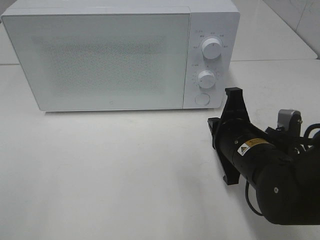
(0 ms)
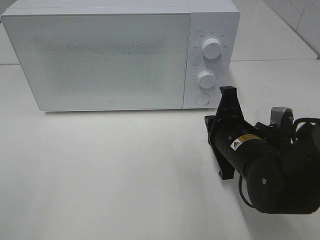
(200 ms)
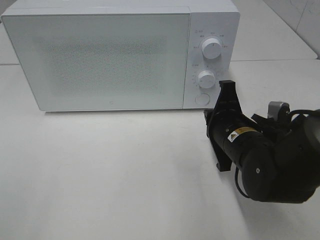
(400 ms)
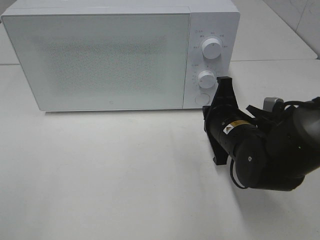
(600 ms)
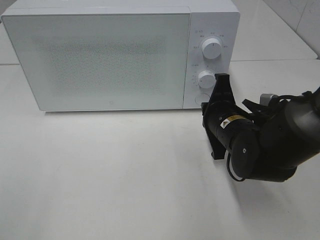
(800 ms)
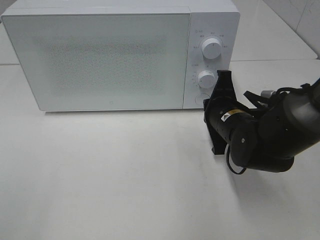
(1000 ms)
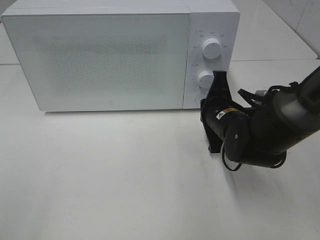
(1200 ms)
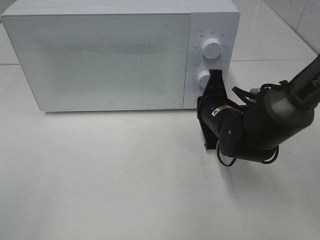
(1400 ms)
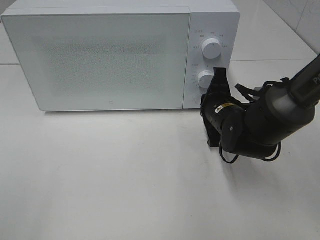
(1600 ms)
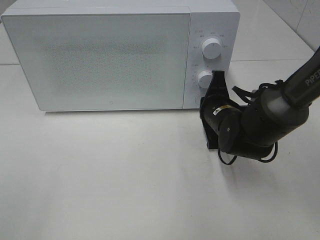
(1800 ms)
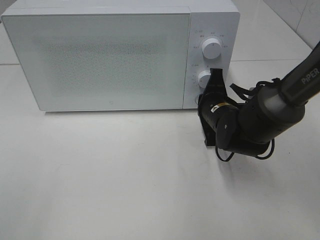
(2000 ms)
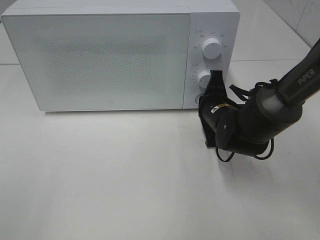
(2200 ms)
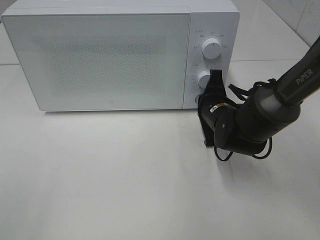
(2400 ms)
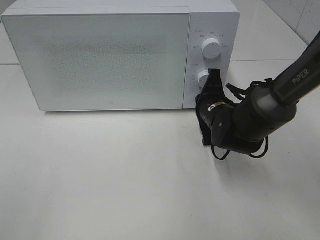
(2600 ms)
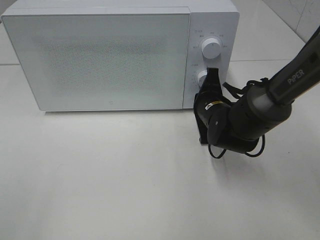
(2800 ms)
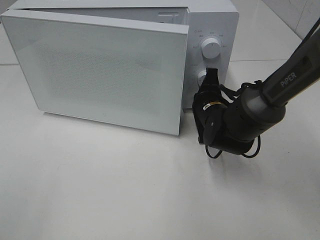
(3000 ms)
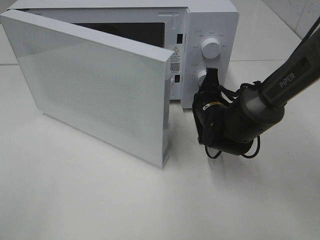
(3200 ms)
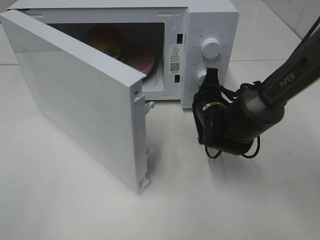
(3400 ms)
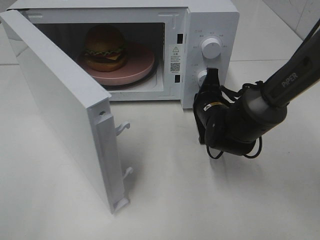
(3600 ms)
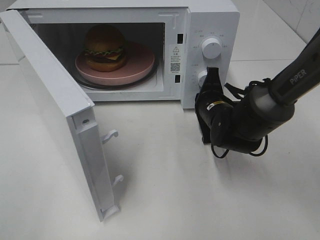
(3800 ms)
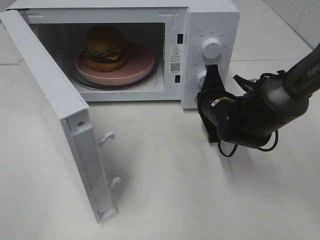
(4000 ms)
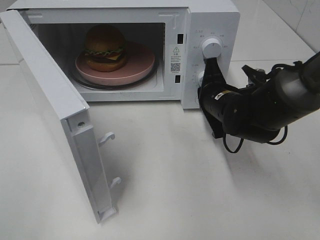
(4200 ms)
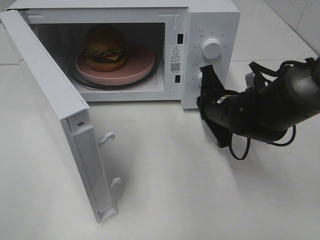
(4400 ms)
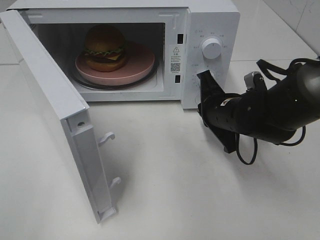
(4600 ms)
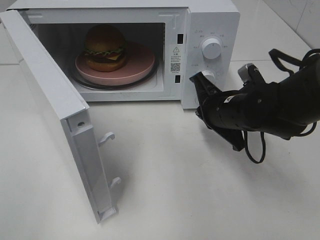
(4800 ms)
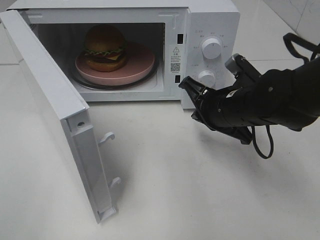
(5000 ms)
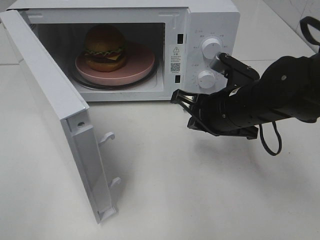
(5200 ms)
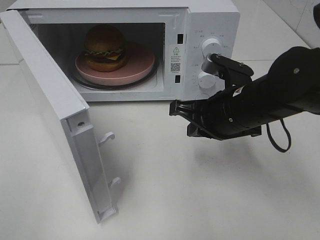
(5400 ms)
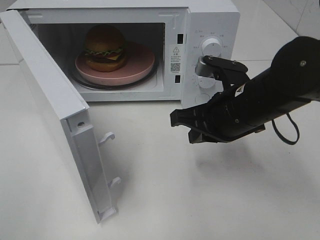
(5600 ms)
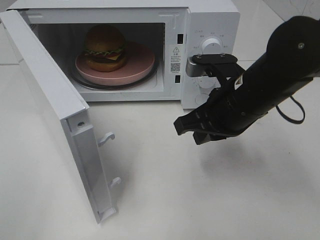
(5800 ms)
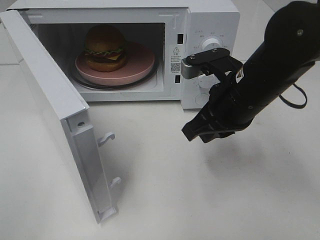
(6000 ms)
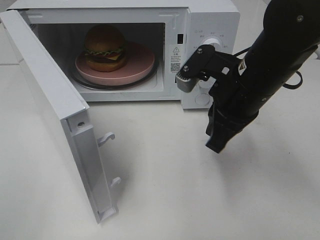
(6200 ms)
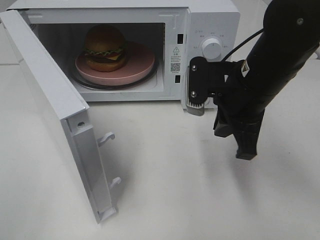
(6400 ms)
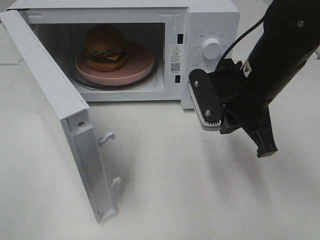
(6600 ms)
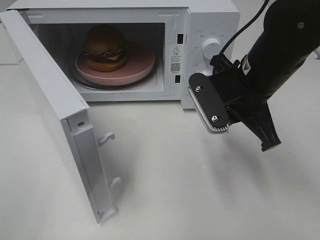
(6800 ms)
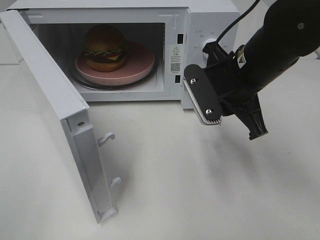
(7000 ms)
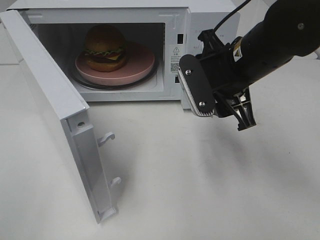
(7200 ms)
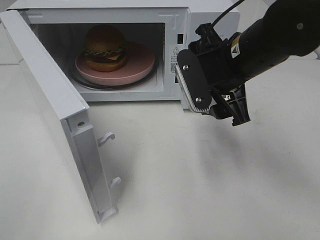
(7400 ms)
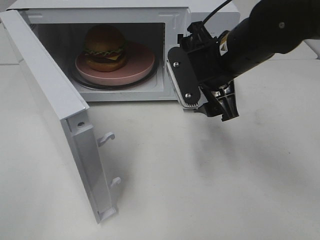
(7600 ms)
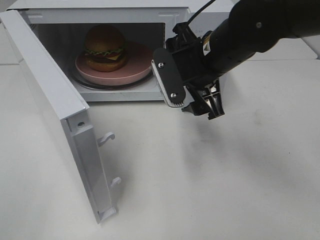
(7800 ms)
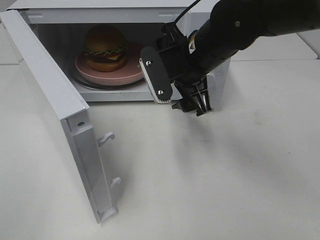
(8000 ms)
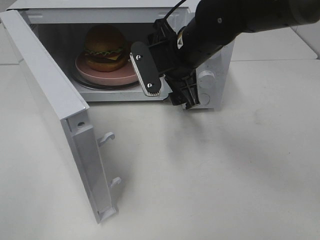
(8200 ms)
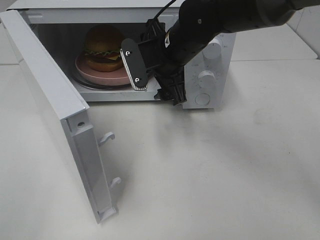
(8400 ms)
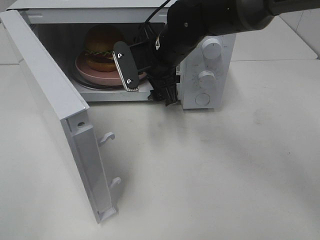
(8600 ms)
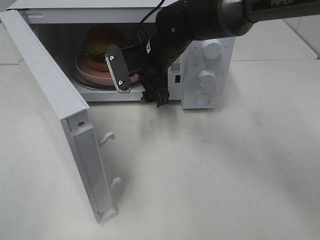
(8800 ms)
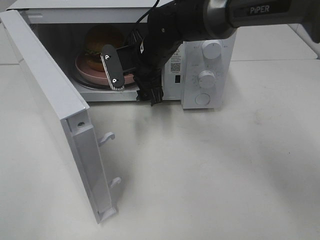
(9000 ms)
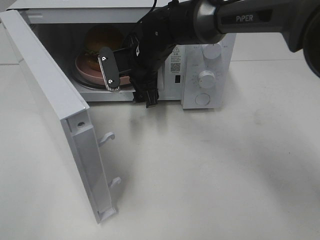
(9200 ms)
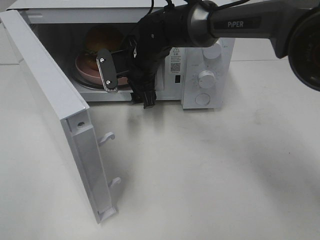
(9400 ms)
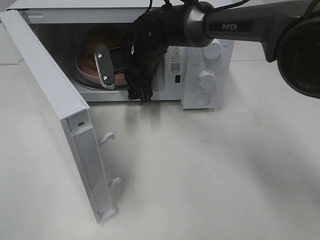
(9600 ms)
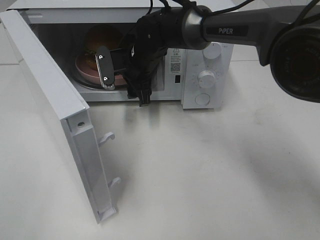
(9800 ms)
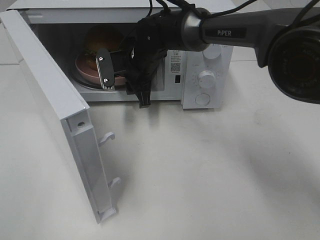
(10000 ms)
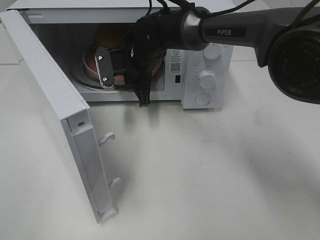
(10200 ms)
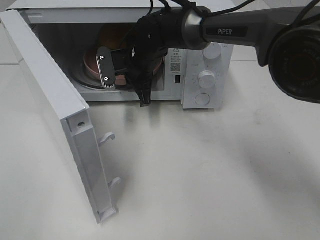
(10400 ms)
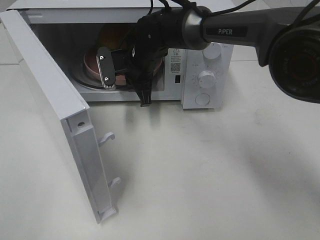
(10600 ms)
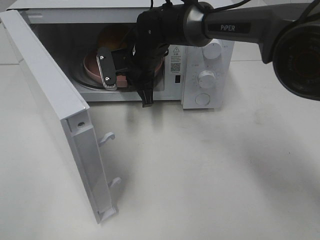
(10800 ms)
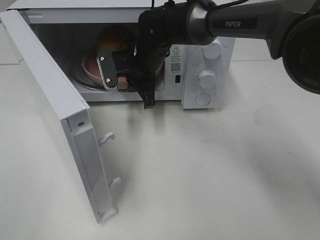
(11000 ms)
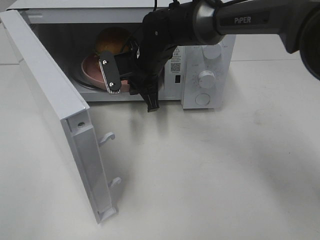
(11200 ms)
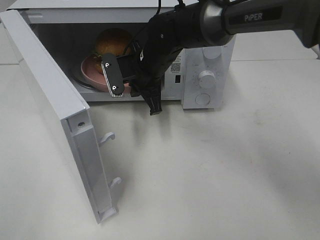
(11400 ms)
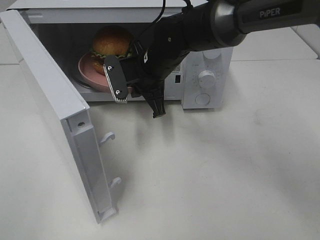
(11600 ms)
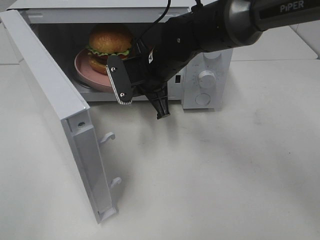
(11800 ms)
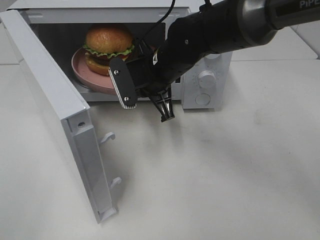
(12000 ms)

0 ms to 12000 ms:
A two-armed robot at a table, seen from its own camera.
Task of the whole recording: Heat the burger.
Step, 0 ms to 4600 ms: Right hand: press the switch.
Step, 4800 ms to 10600 ms: Right hand: grab the plate with the hamburger.
0 ms to 1600 ms: The right gripper travels forward by roughly 10 cm.
1600 ms to 3000 ms: The grippers make only small movements.
4400 ms to 6000 ms: The right gripper heads upward and backward, covering about 10 cm.
6000 ms to 7600 ms: The right gripper shifts by approximately 5 cm, and opens up.
7600 ms to 9000 ms: The right gripper shifts some 15 cm to the left, forward and downward.
9000 ms to 10400 ms: The right gripper closes up.
10400 ms to 12000 ms: The right gripper travels backward by approximately 10 cm.

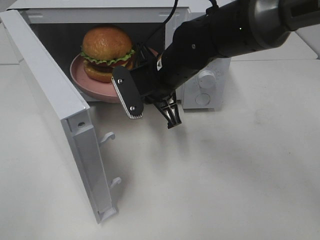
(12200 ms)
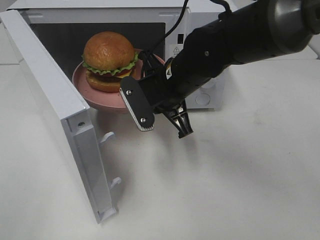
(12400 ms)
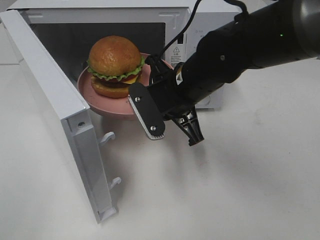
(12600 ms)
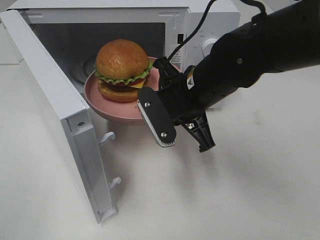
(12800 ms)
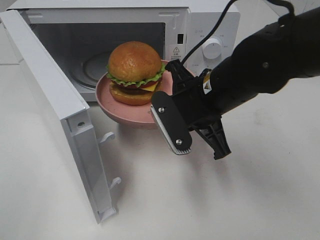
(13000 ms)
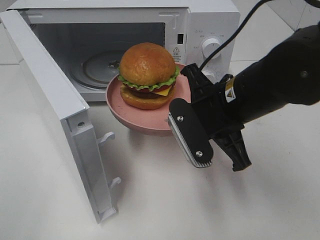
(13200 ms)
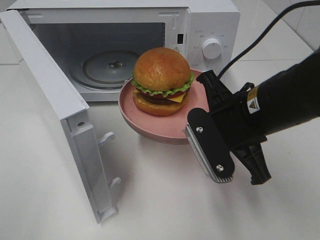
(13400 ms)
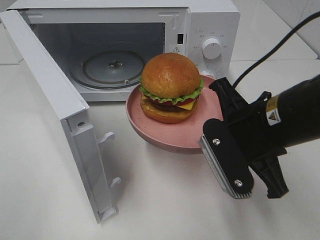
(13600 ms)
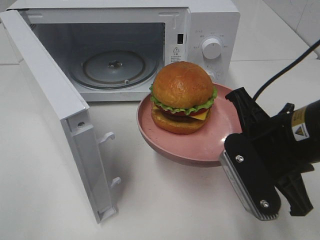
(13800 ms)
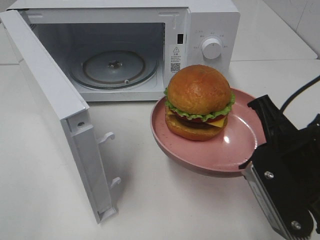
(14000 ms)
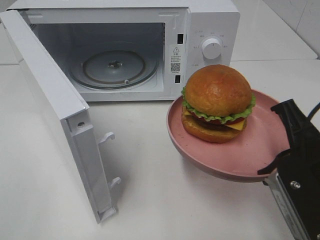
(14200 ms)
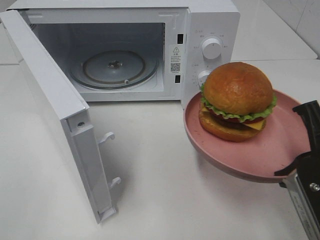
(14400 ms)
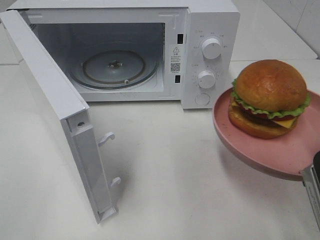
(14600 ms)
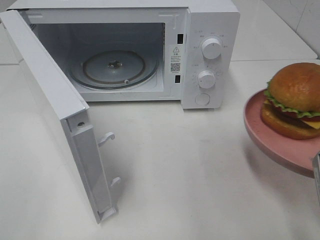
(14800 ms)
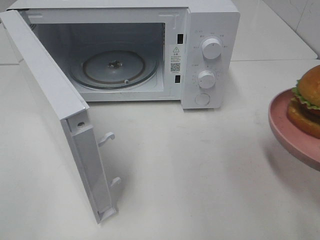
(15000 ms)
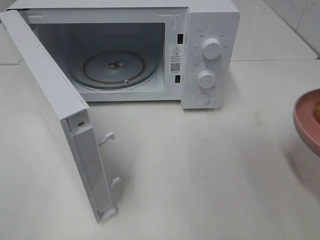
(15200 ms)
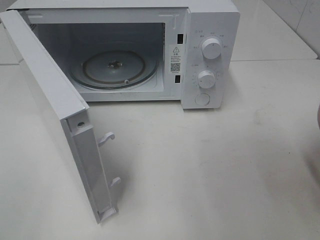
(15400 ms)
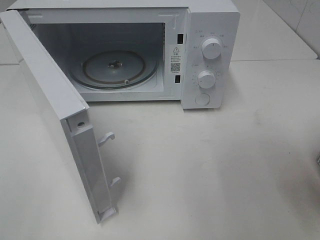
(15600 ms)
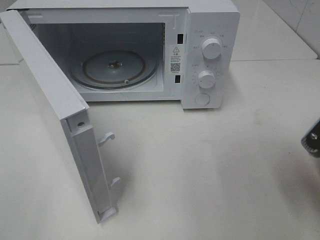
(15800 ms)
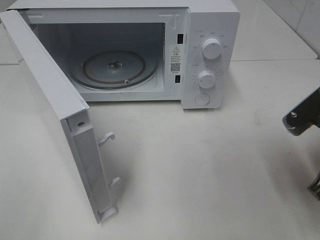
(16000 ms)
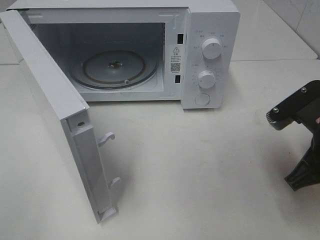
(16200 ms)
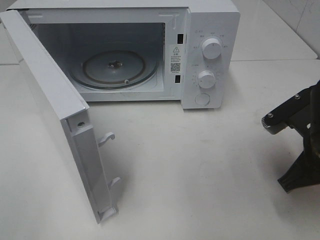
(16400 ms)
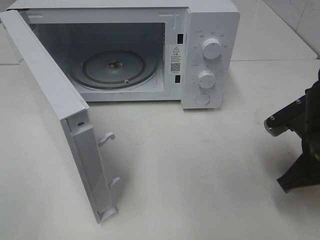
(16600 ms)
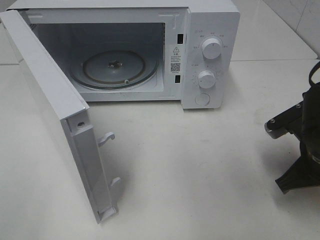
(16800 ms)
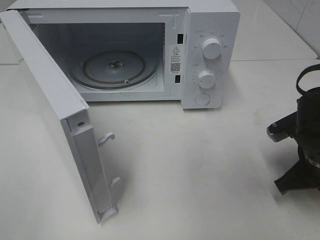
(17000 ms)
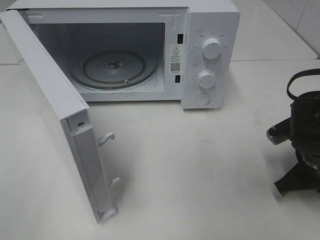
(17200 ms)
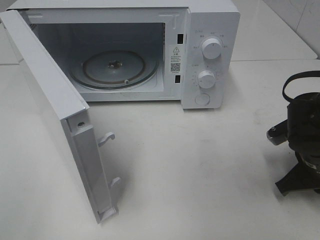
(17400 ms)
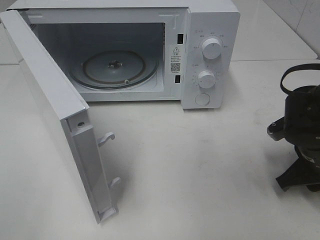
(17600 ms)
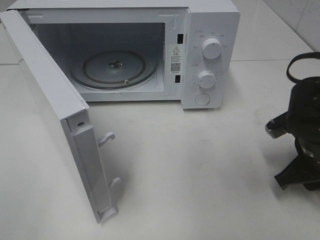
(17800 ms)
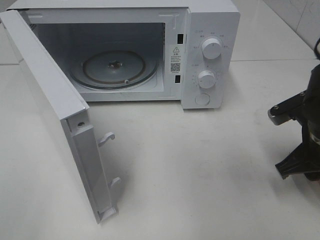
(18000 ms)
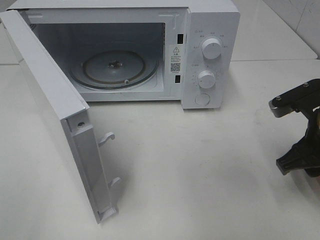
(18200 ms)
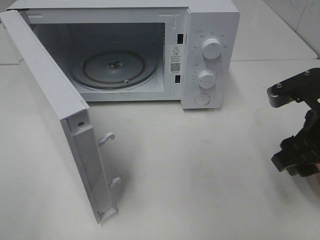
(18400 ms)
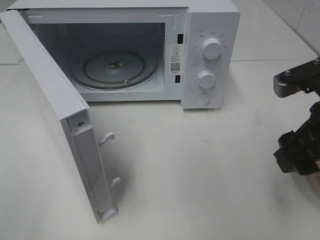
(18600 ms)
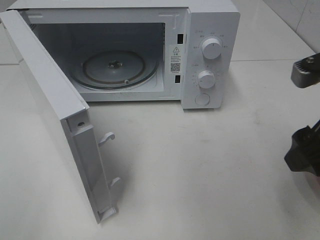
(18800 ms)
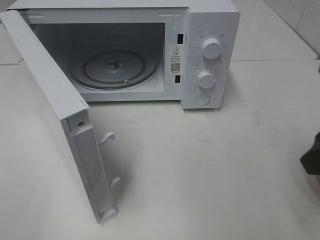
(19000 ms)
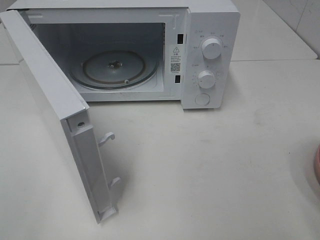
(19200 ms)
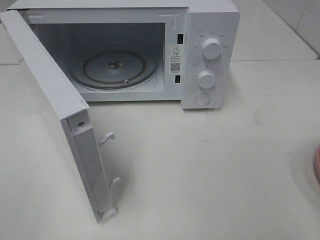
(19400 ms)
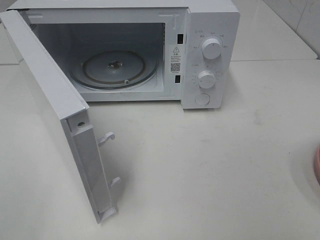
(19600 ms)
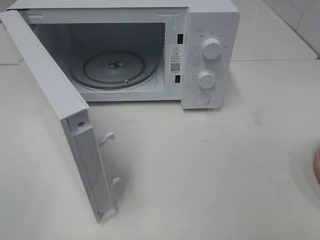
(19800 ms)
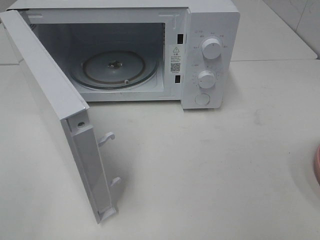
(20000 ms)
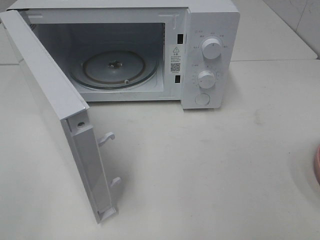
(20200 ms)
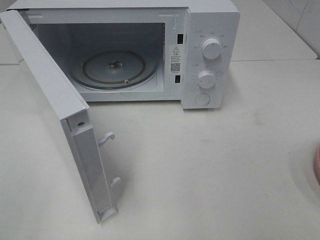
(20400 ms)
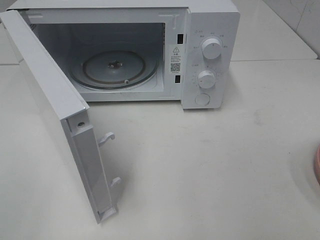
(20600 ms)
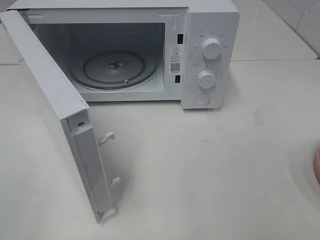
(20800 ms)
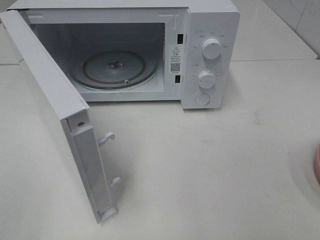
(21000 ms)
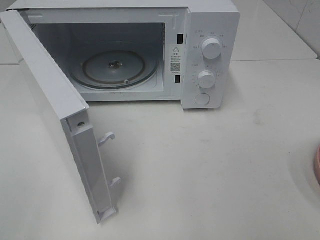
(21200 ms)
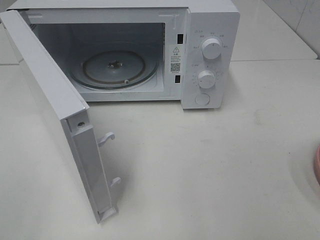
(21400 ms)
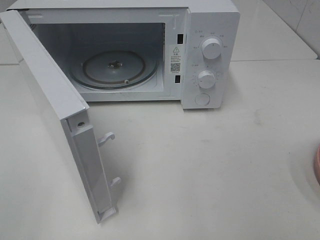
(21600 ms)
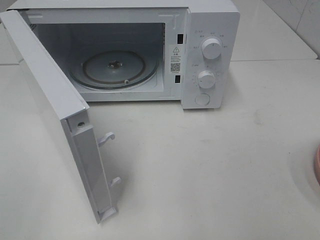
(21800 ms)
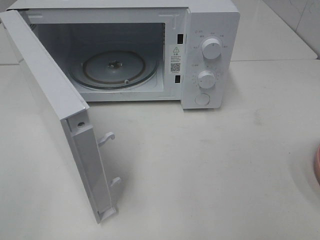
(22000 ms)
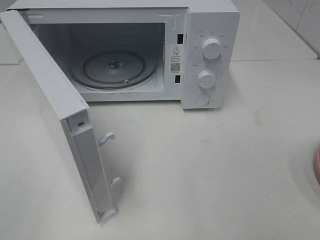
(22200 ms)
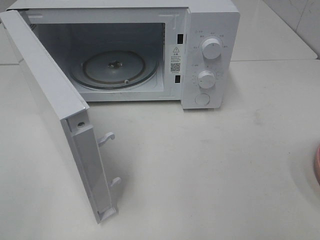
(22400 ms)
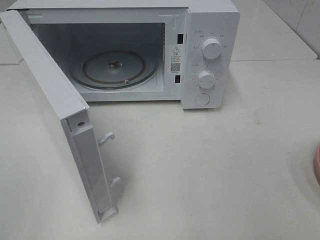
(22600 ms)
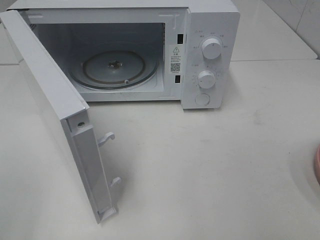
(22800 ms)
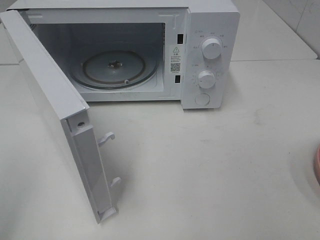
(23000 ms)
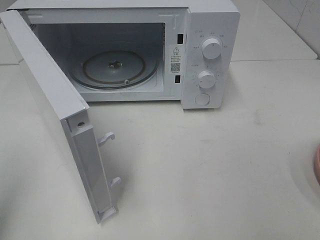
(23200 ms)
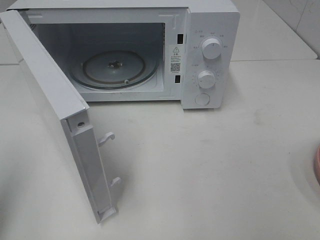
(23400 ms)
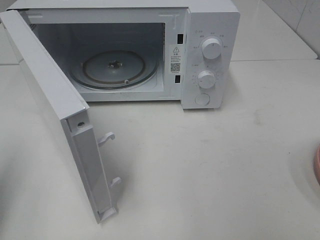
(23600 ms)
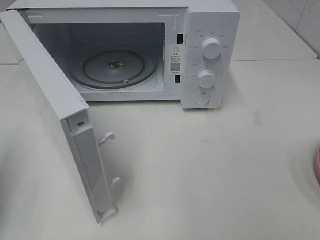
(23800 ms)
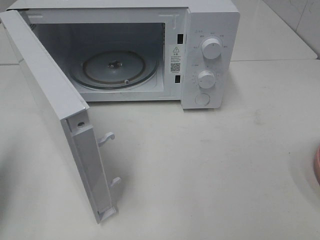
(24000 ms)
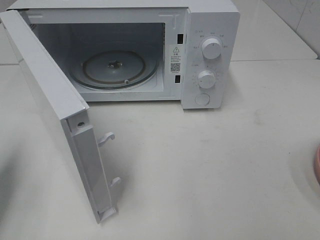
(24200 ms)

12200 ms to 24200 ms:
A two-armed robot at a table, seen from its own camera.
Task of the whole recording: Heat the burger.
Step, 12200 ms to 18000 ms: Right hand: place the plate on the table.
12200 ms to 13800 ms: The right gripper moves backward and to the right, approximately 20 cm.
13800 ms to 15200 ms: The right gripper travels to the right and backward by roughly 10 cm.
15200 ms to 16600 ms: The right gripper moves forward and downward, approximately 10 cm.
16600 ms to 18200 ms: The right gripper opens.
18200 ms to 19800 ms: The right gripper heads backward and upward, covering roughly 25 cm.
22600 ms to 24200 ms: The left gripper moves forward and downward, some 20 cm, and closes.
